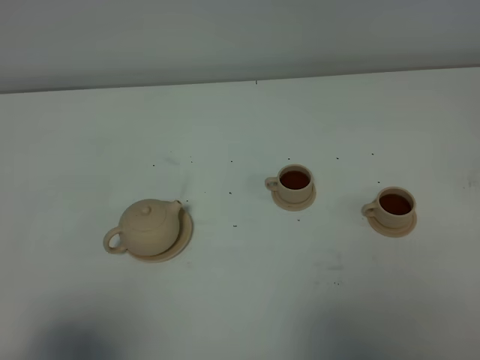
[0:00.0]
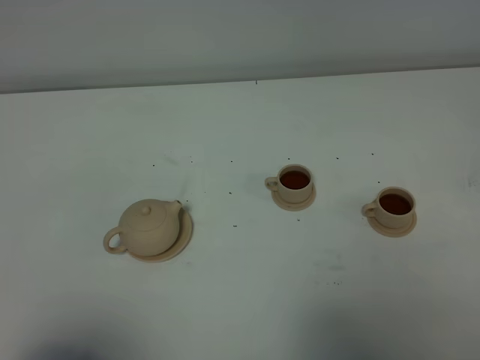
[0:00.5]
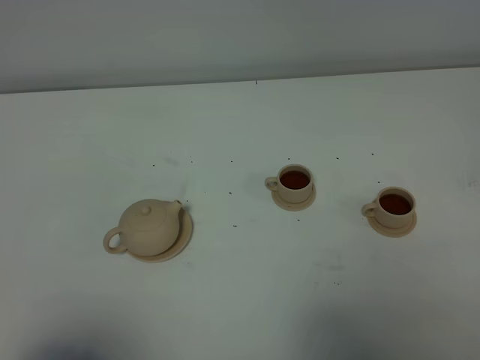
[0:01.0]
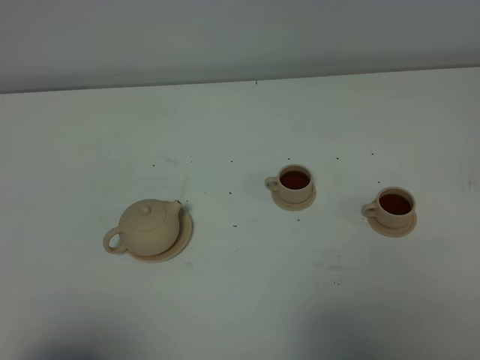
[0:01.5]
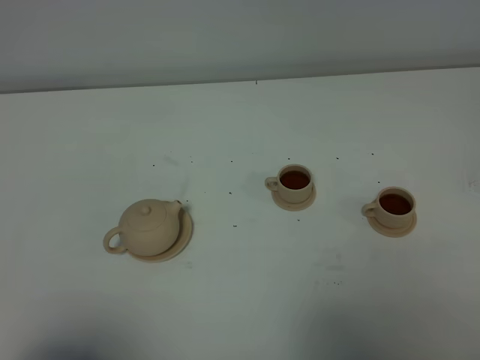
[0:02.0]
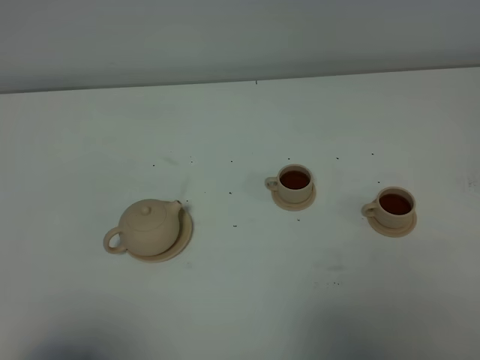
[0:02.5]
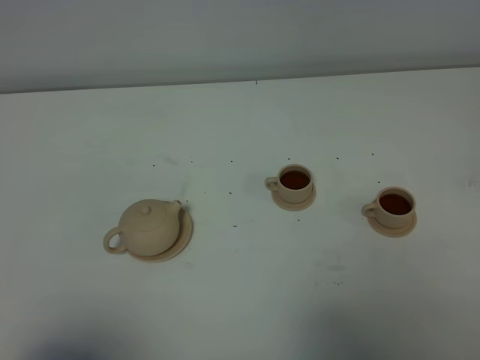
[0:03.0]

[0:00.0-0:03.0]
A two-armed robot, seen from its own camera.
Task of the whole recording: grasp the brown teapot and pour the tea into the two brown teacups one by one, put the brown teapot back in its original place.
0:01.5 to 0:03.0: Neither gripper changes place.

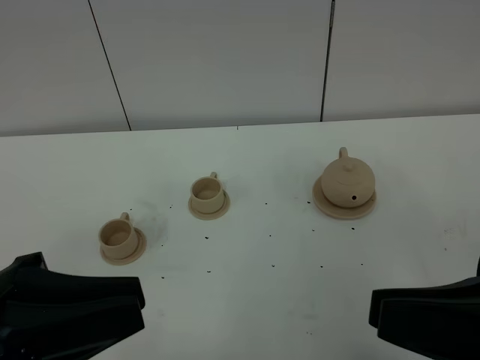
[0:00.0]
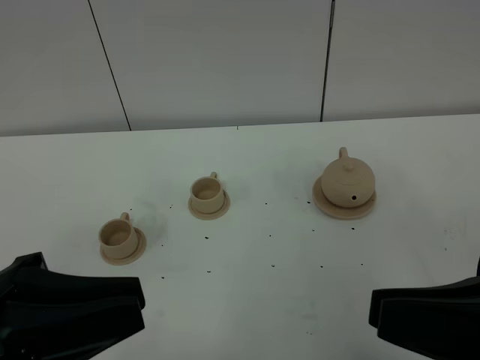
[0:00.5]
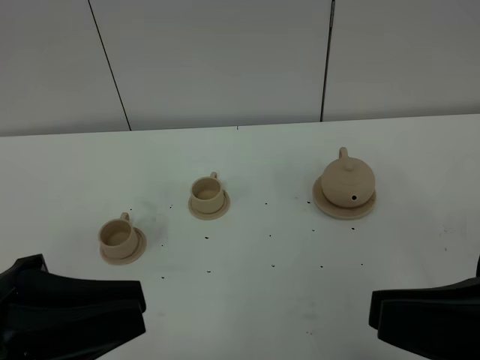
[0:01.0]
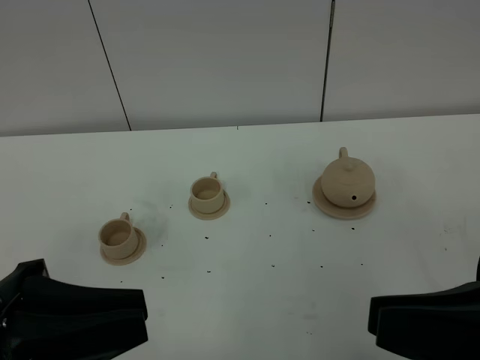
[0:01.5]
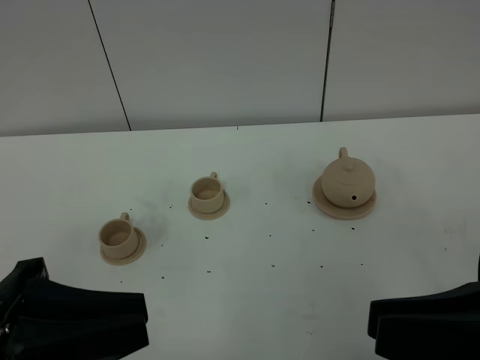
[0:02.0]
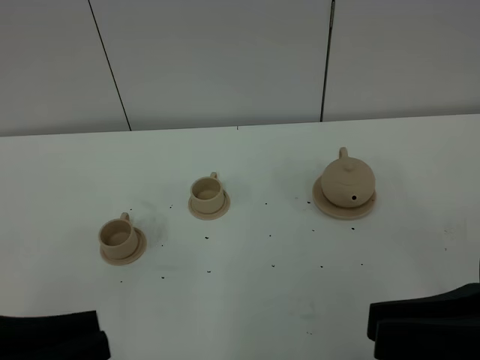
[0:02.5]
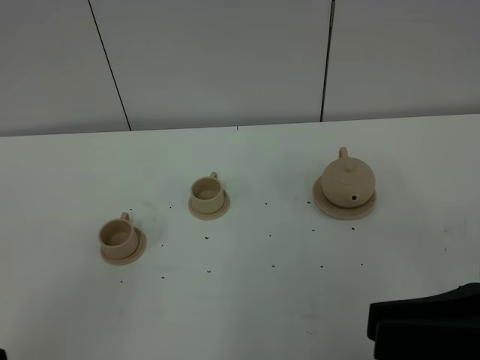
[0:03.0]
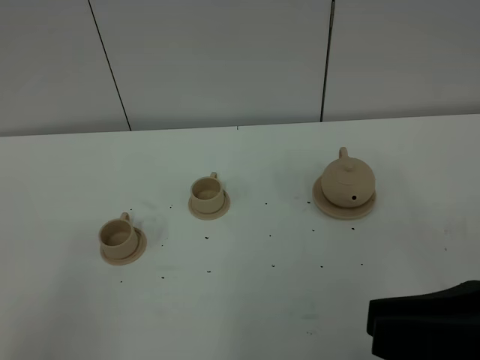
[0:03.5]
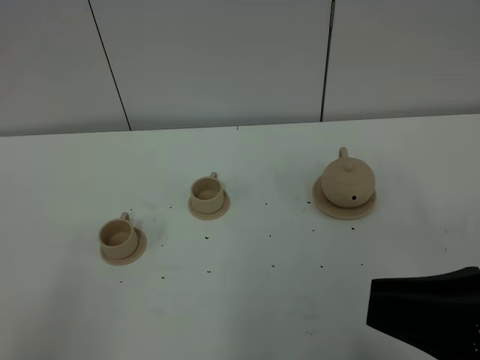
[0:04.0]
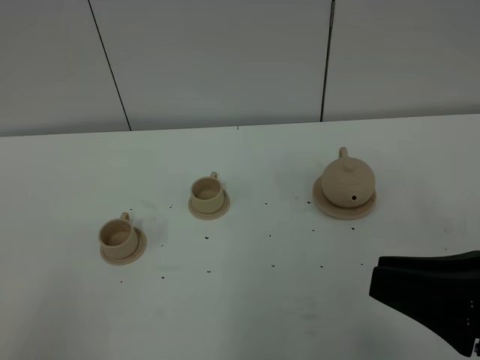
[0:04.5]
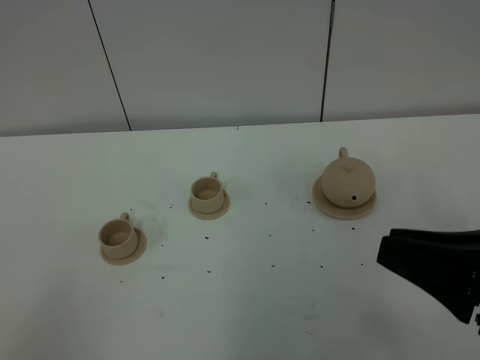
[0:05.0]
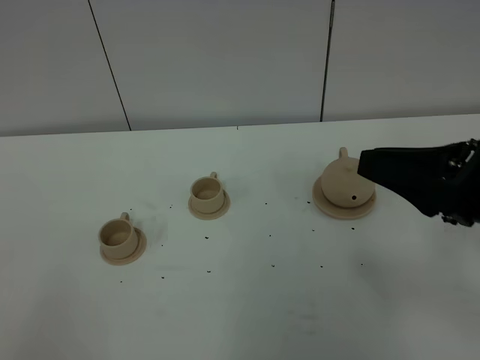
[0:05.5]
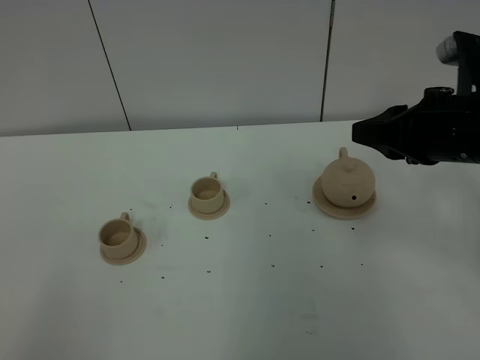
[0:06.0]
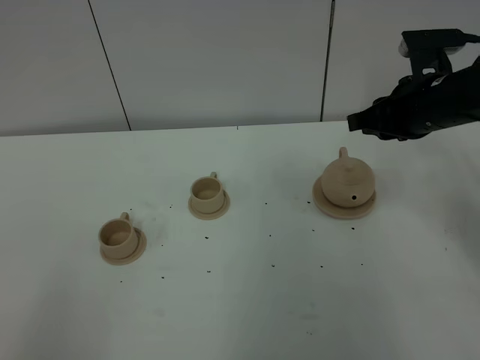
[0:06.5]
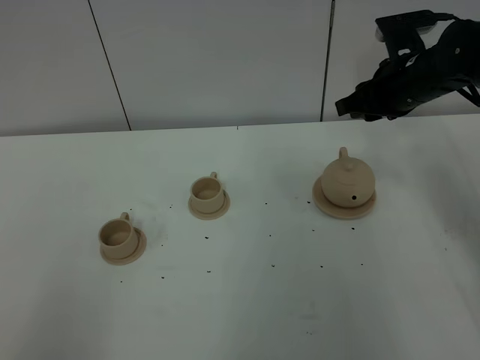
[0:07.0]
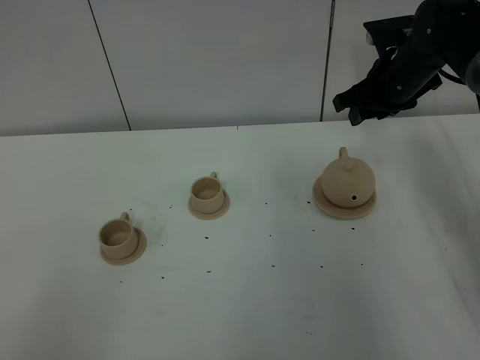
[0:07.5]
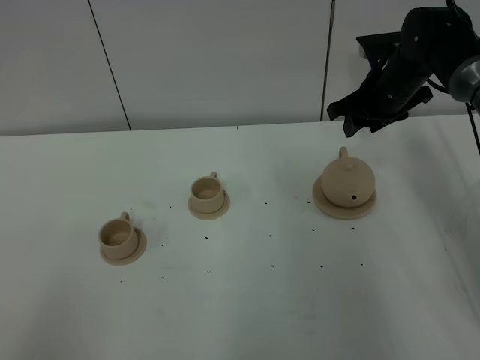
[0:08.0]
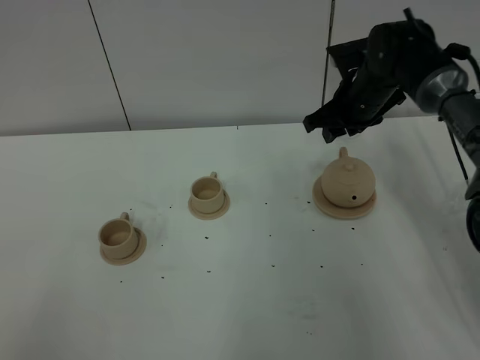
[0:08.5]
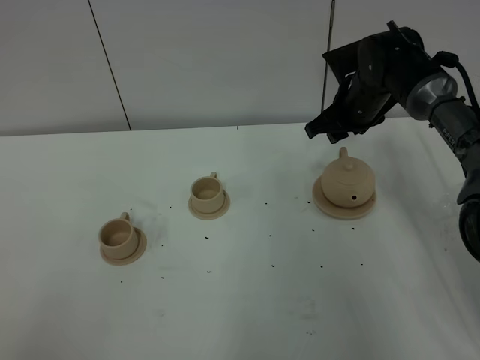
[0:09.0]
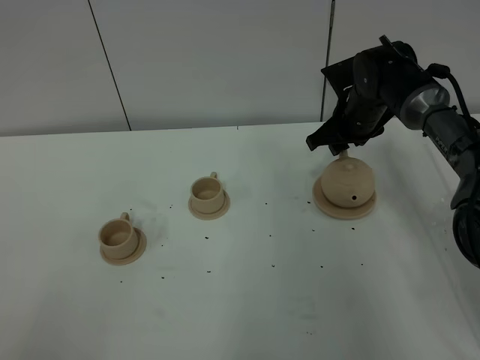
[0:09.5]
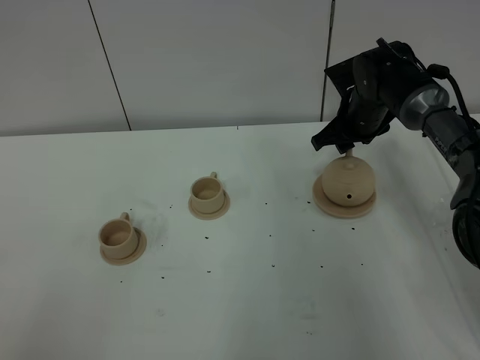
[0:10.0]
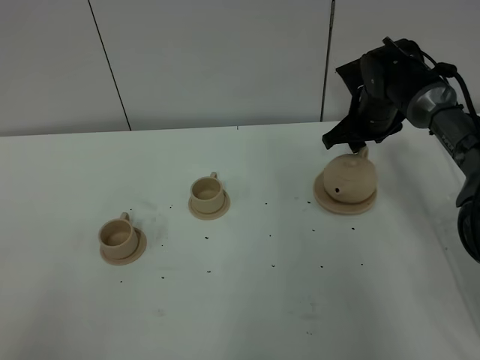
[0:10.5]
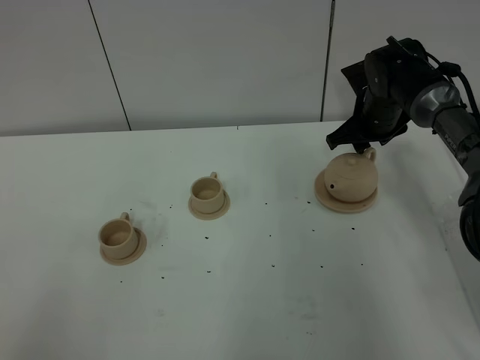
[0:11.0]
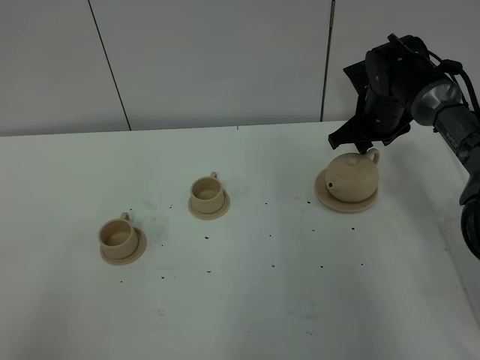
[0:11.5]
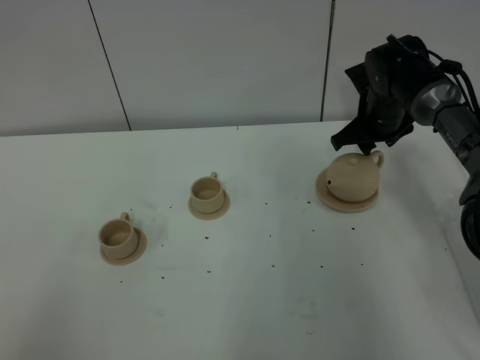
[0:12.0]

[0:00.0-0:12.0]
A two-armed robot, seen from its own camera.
Task of the whole recording: grasp the brown teapot and pour the tea into the two brown teacups one by one, put the brown teapot back in its original place.
0:00.0 to 0:02.0: The grippers make only small movements.
0:02.0 to 0:04.0: The left gripper goes some 15 cm backward and to the left.
0:04.0 to 0:06.0: The right gripper shifts approximately 20 cm forward.
0:06.0 to 0:08.0: The right gripper is displaced forward and downward by approximately 20 cm, and opens.
0:08.0 to 0:10.0: The right gripper shifts by approximately 5 cm.
0:10.0 to 0:12.0: There are only small adjustments of the grippers.

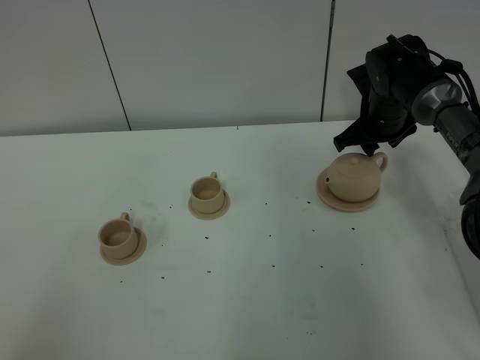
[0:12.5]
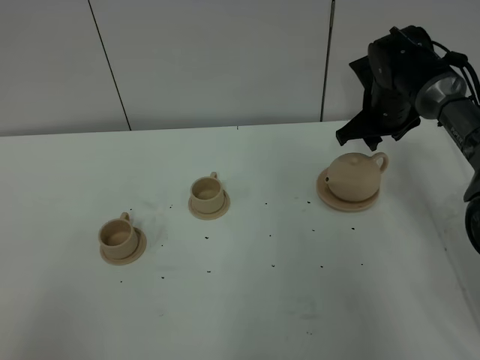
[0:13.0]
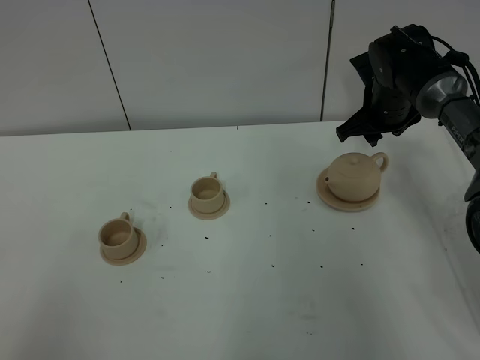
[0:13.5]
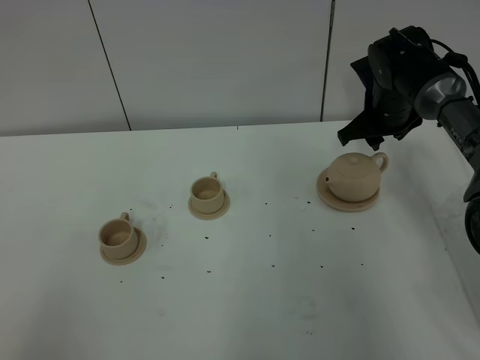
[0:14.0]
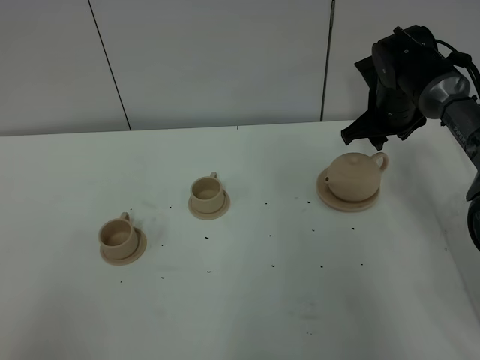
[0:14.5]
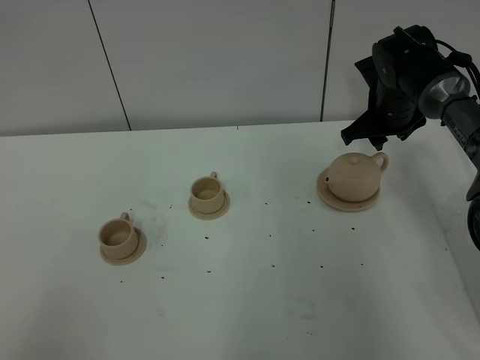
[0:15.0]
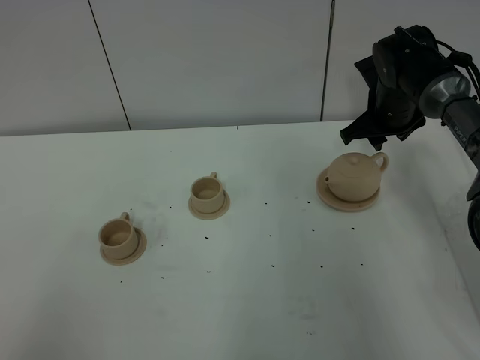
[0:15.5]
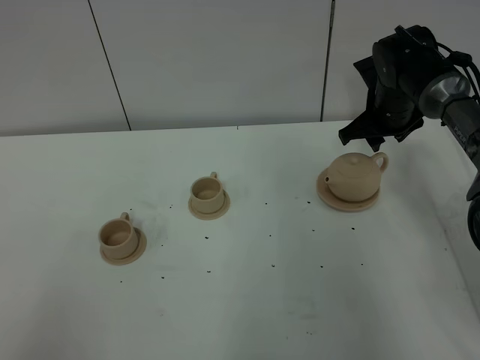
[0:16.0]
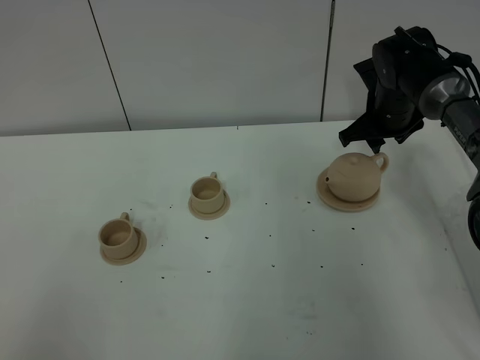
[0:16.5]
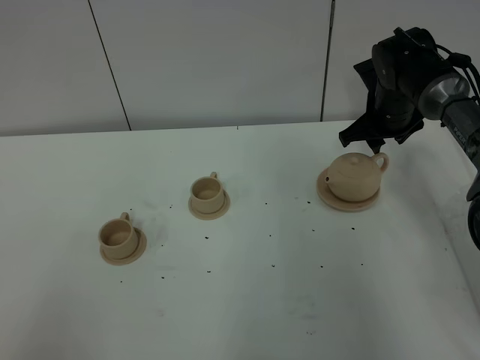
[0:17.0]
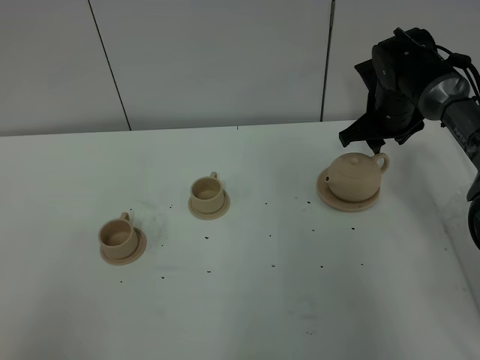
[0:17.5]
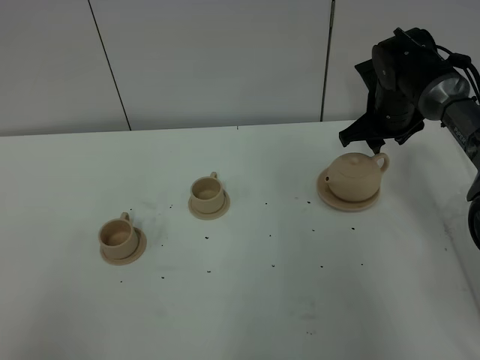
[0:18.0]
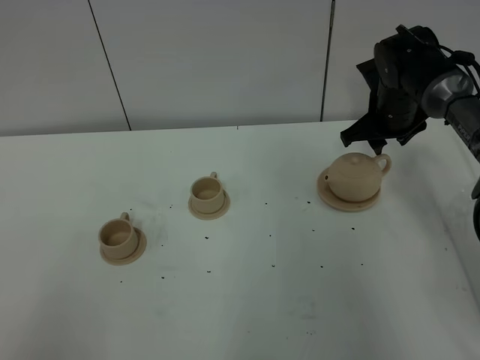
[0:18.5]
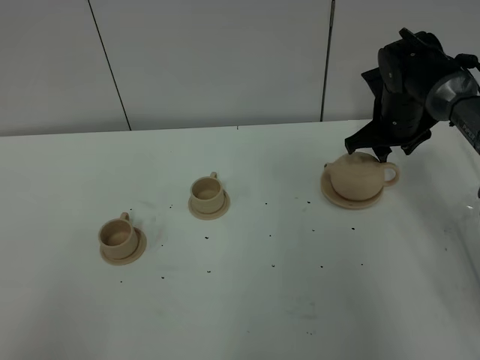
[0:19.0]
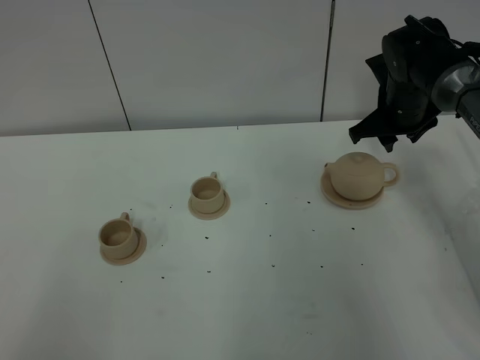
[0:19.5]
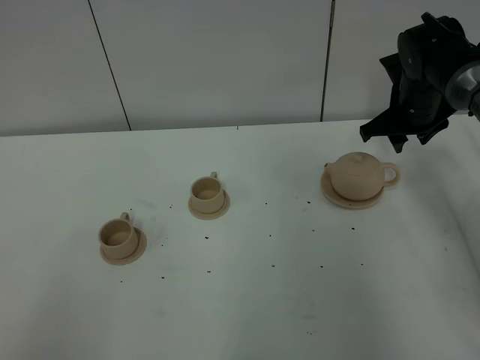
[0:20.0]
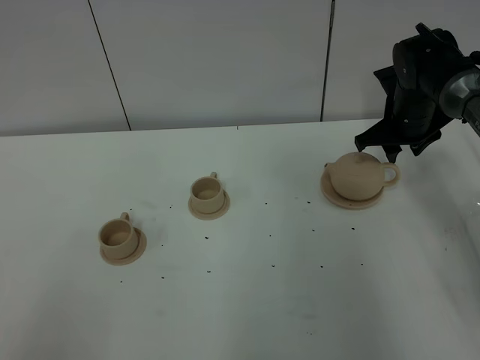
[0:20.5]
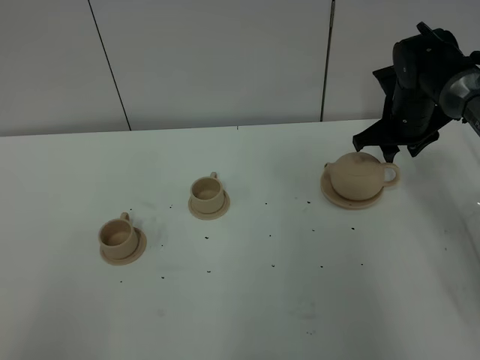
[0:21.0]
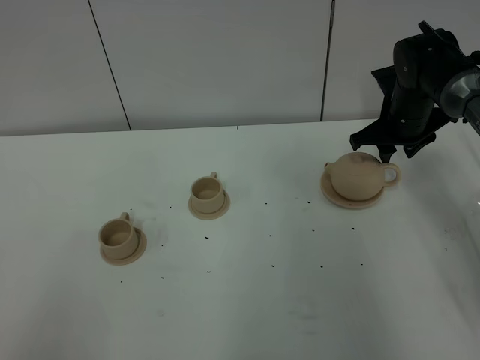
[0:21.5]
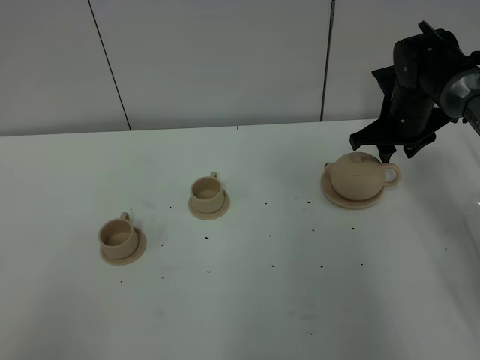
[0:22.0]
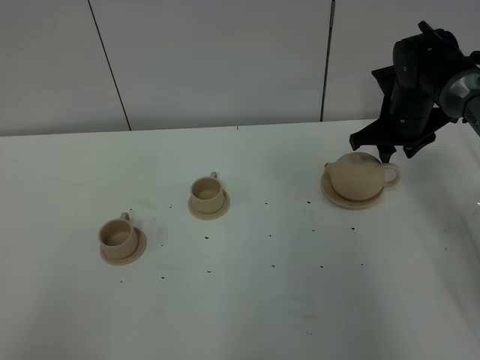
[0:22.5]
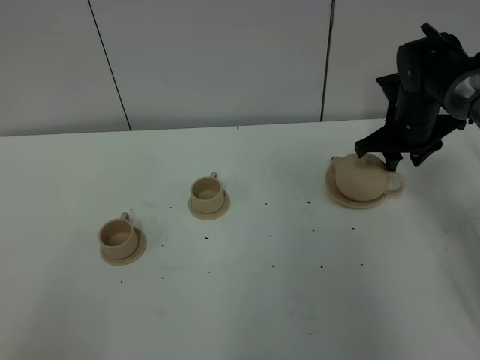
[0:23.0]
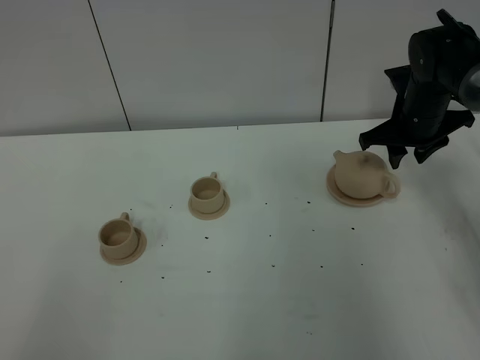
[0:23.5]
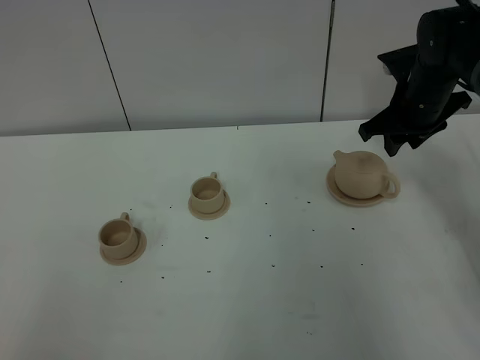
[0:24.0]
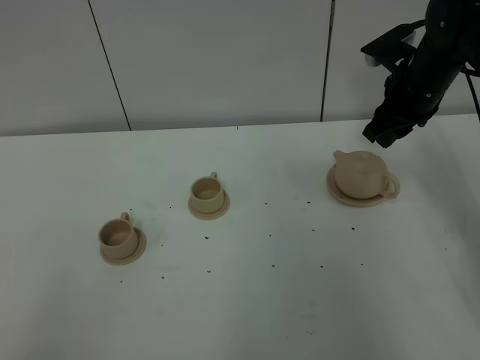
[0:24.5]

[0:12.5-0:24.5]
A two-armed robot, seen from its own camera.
Task of the whole recording: grasp the brown teapot and pour the tea into the two brown teacups one by one, put the brown teapot back in its original place.
0:12.5 to 0:14.5: The grippers move only a little.
0:14.5 to 0:18.5: The two grippers keep their place.
0:18.5 to 0:20.5: The grippers move only a little.
0:20.5 to 0:22.5: Both grippers stay about where they are.
0:22.5 to 0:24.5: The right gripper moves upward, approximately 5 cm.
